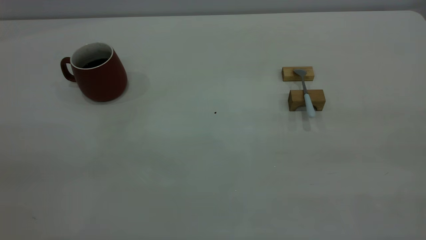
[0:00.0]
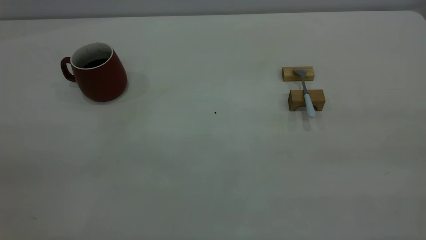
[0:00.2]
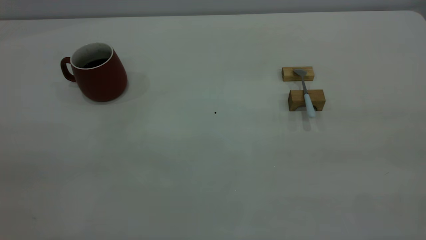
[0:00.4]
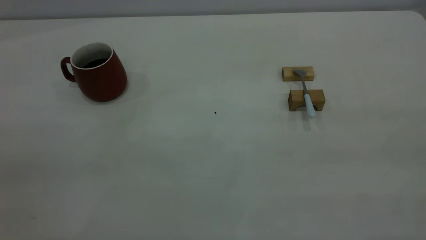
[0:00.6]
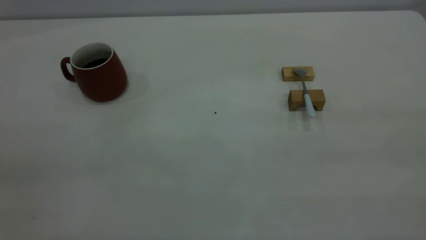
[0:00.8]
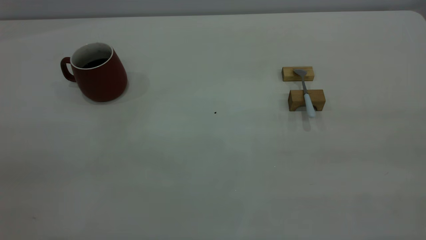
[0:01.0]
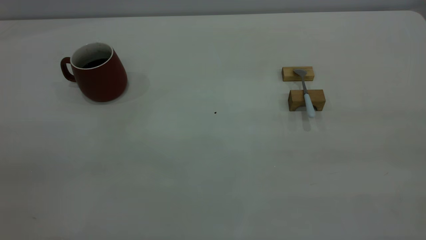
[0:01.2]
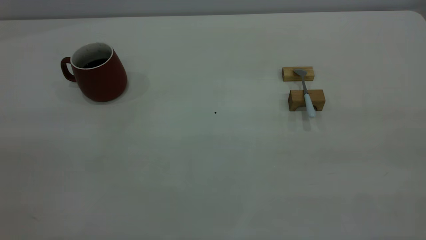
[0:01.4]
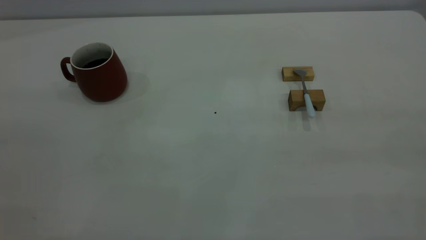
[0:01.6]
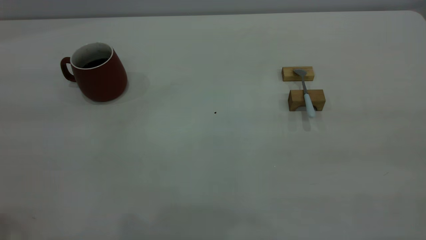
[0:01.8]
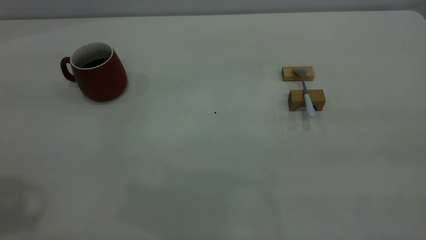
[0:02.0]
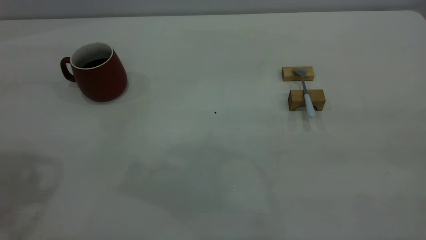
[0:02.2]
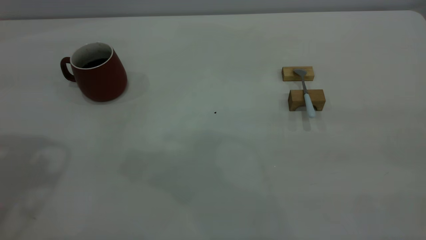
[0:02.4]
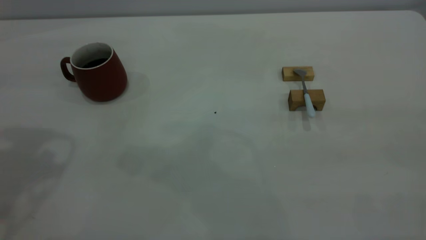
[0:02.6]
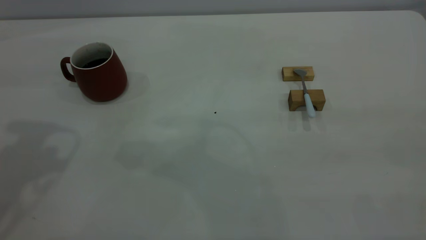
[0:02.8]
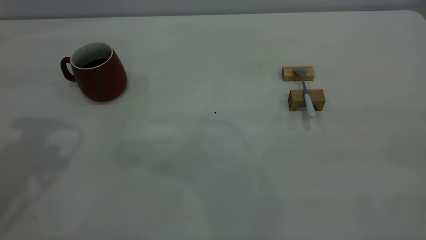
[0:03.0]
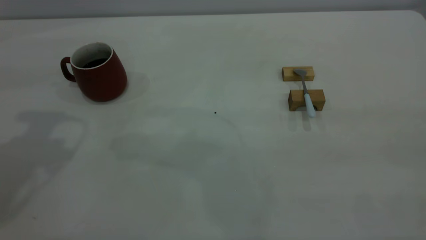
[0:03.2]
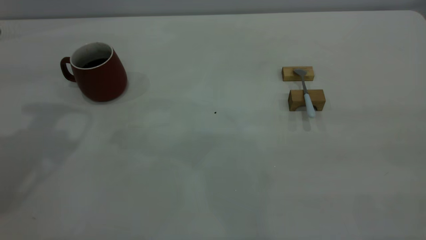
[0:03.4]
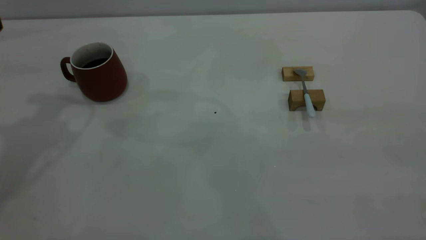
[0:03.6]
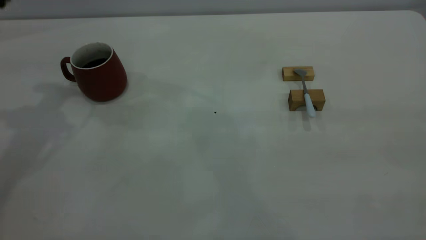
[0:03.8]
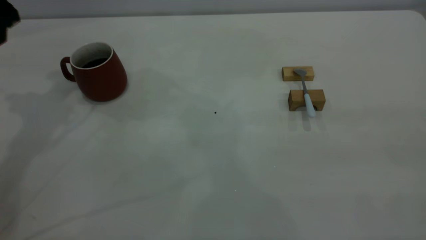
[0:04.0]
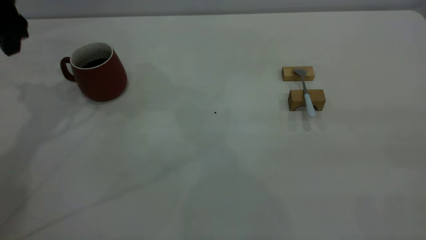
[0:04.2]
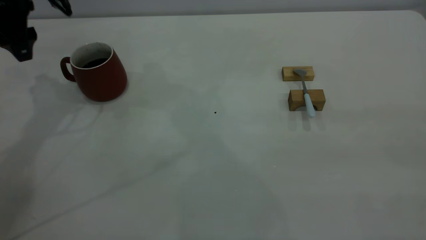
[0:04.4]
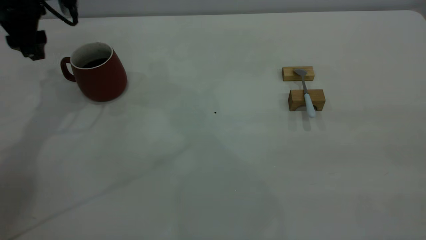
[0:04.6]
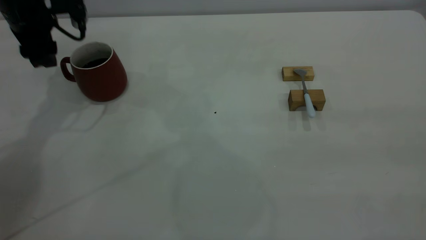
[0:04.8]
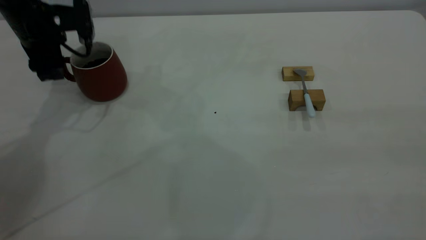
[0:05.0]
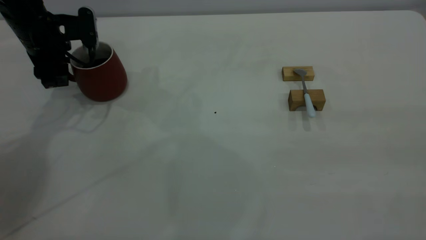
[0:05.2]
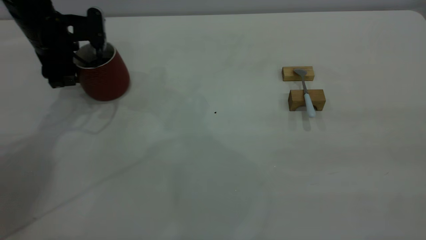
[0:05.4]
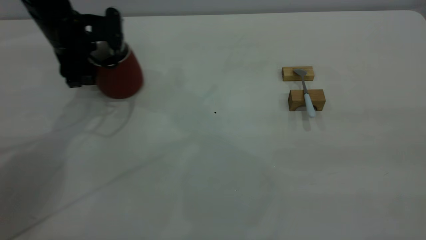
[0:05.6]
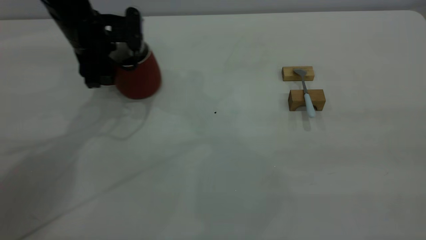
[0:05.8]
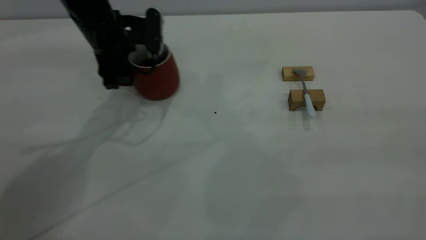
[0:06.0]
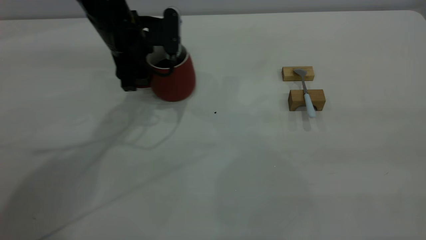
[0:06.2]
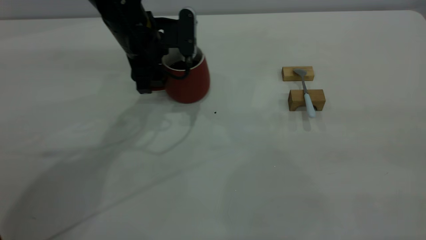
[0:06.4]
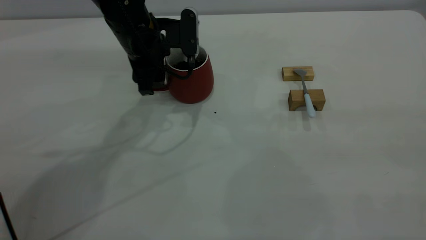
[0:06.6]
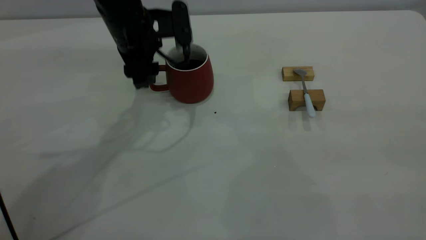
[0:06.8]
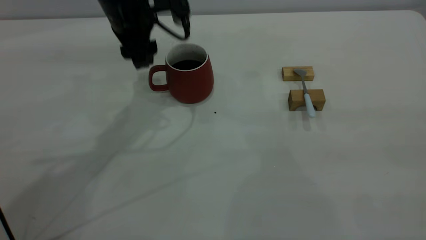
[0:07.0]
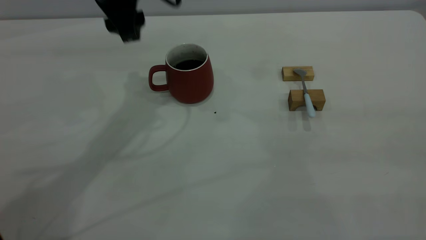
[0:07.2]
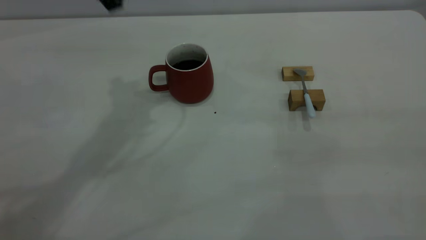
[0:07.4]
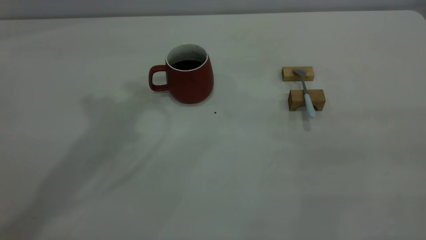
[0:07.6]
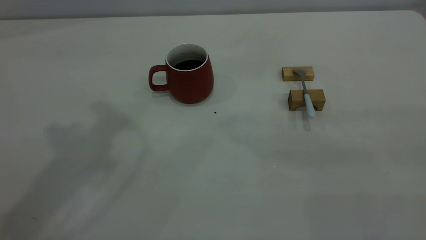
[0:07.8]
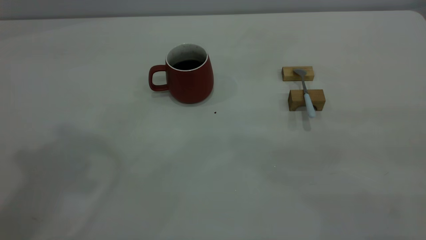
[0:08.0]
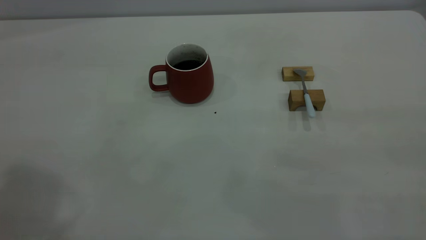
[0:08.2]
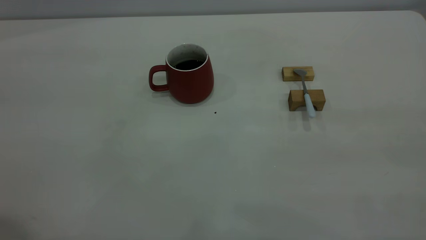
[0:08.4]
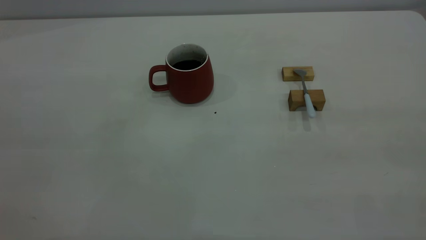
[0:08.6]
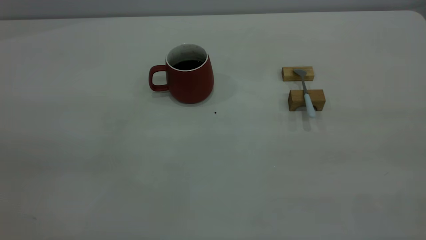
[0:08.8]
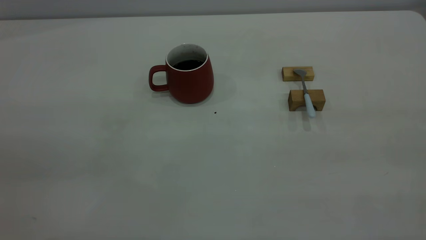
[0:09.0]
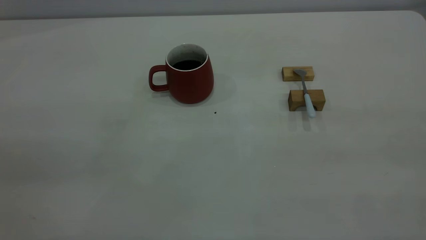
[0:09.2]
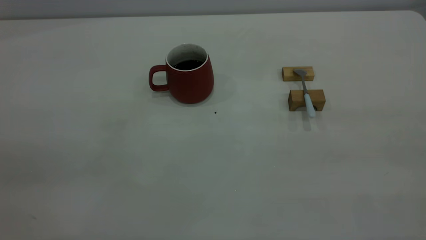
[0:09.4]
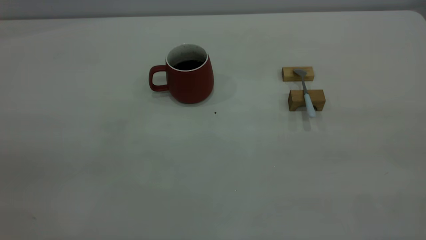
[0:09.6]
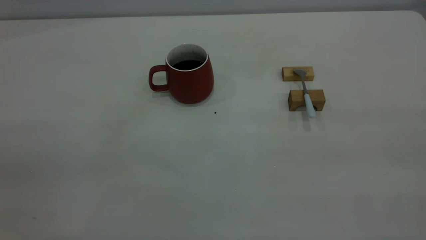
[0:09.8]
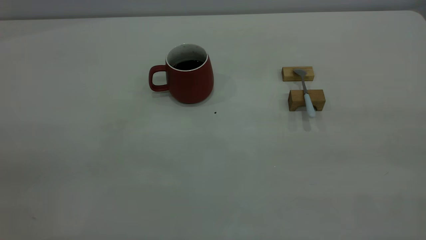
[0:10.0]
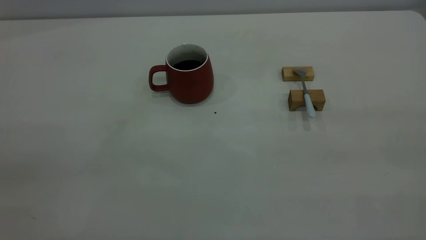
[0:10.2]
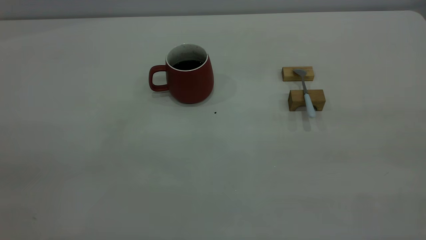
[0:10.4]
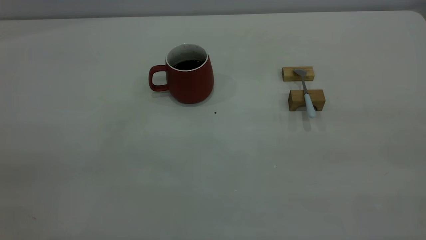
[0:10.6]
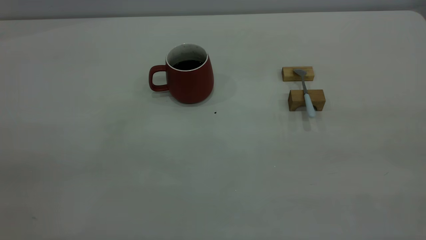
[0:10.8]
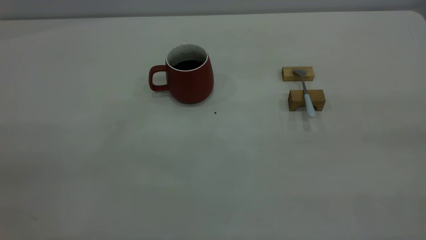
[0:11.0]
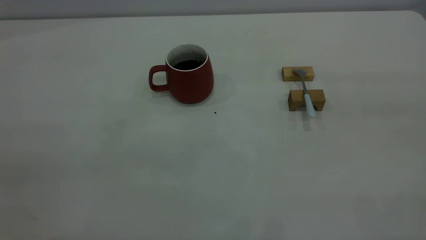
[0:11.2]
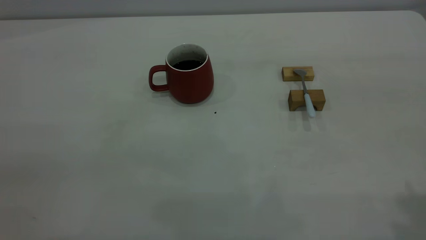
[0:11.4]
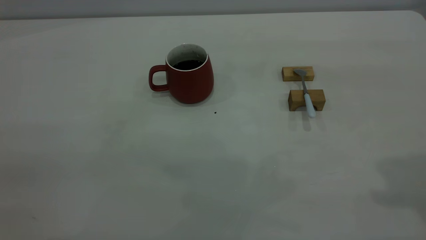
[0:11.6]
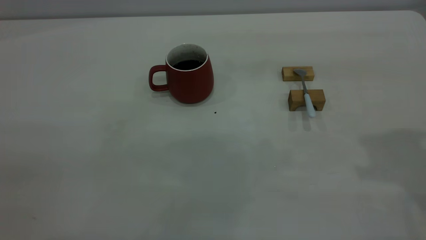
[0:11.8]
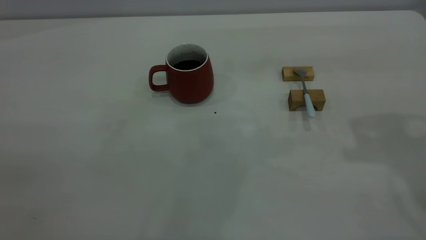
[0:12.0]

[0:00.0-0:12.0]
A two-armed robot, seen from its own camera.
Step, 0:00.0 to 0:07.0: Move the cup with coffee to the center of view.
0:03.0 to 0:04.4: The left gripper heads forward and downward, covering about 20 cm.
0:04.4 to 0:06.0: The left gripper is displaced to the right and downward by about 15 cm.
0:06.0 to 0:07.6: The left gripper travels upward by some 25 cm.

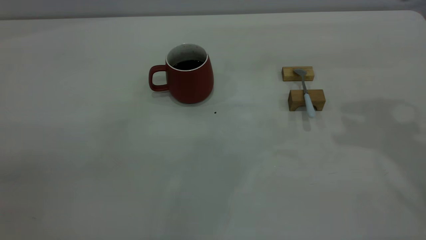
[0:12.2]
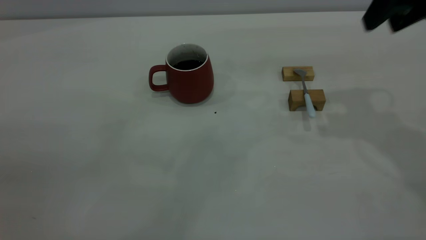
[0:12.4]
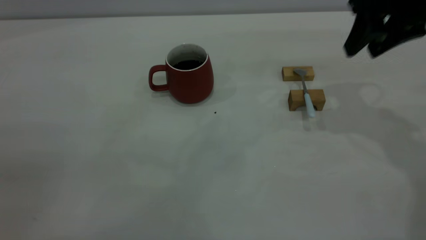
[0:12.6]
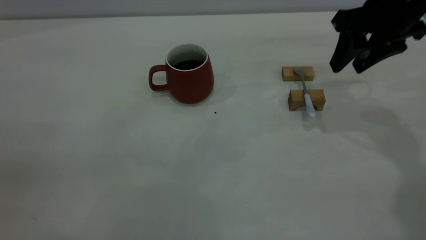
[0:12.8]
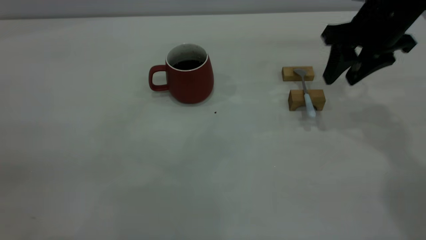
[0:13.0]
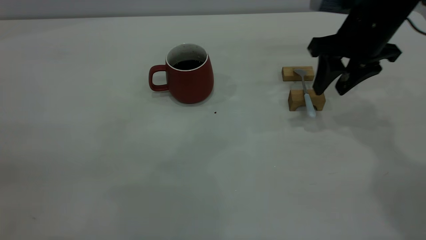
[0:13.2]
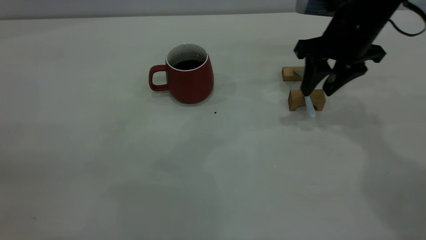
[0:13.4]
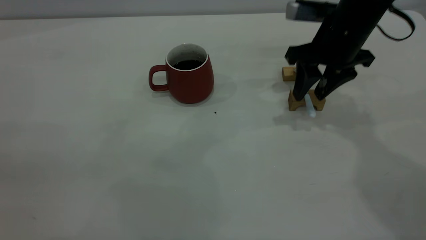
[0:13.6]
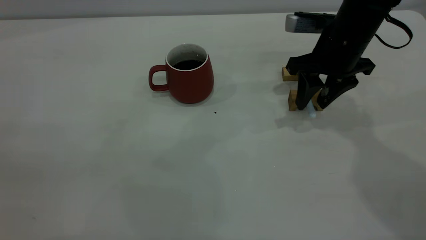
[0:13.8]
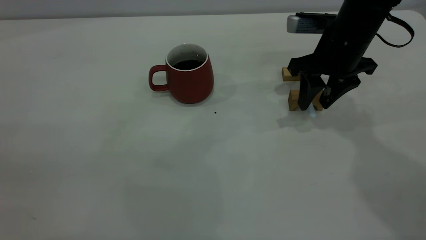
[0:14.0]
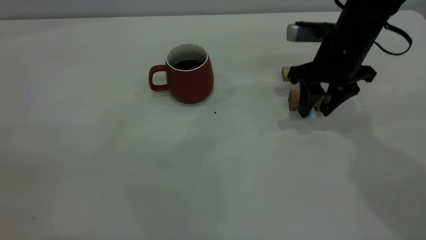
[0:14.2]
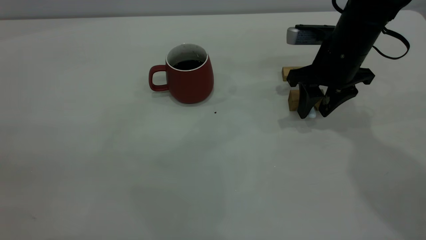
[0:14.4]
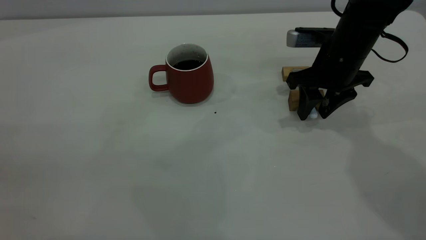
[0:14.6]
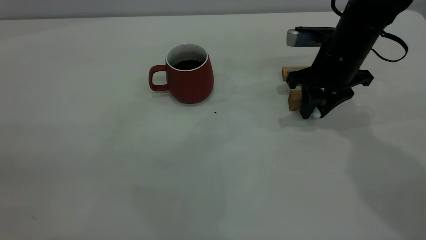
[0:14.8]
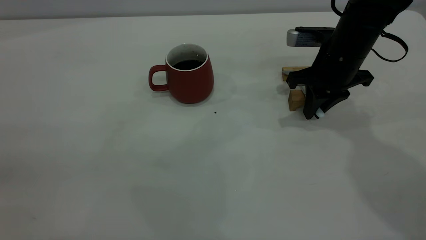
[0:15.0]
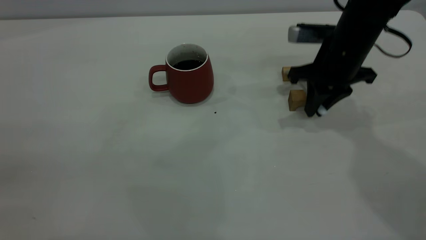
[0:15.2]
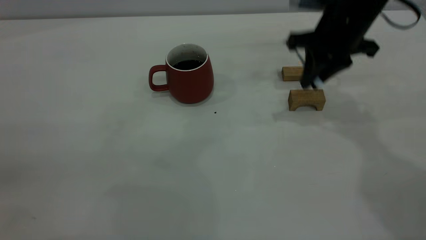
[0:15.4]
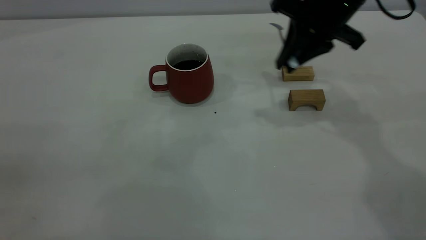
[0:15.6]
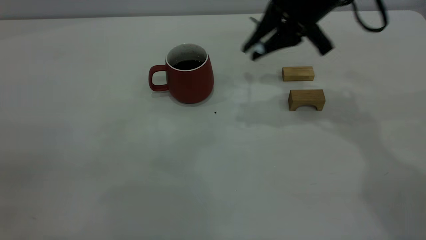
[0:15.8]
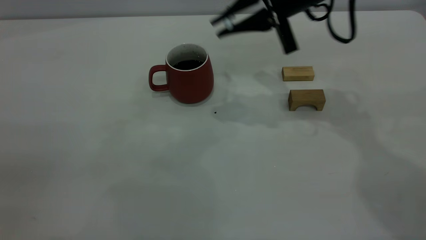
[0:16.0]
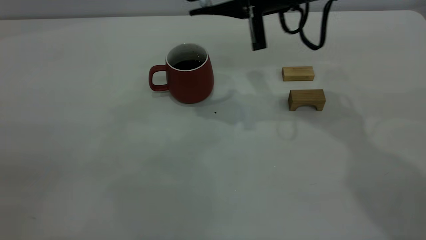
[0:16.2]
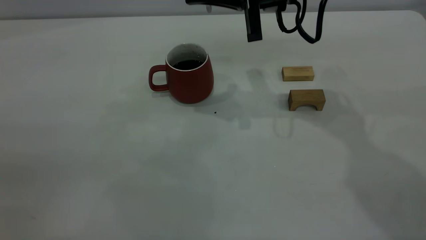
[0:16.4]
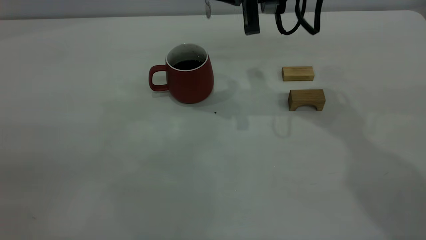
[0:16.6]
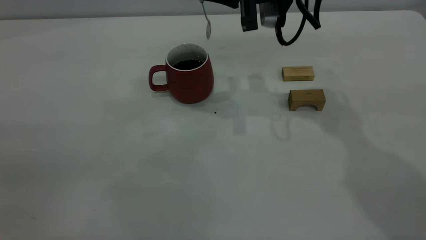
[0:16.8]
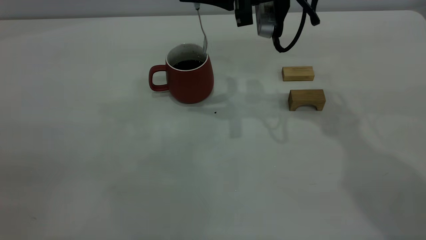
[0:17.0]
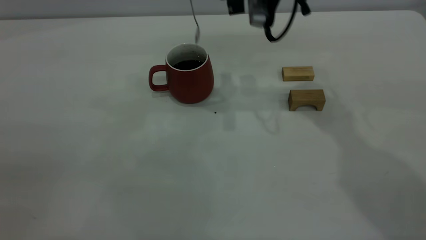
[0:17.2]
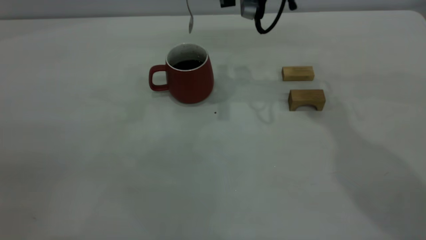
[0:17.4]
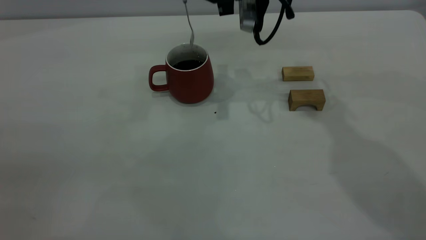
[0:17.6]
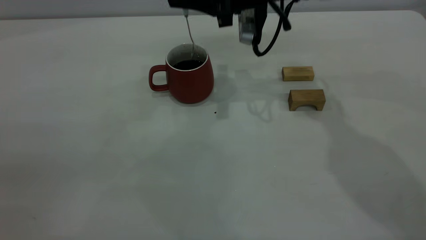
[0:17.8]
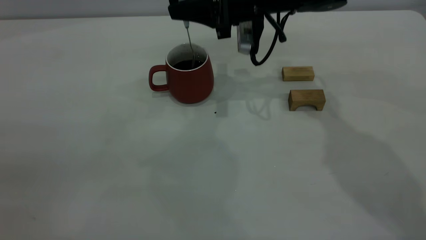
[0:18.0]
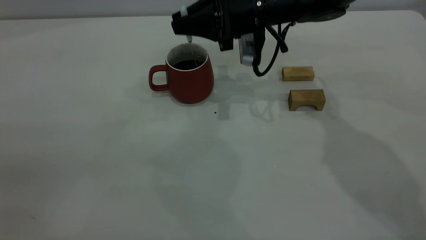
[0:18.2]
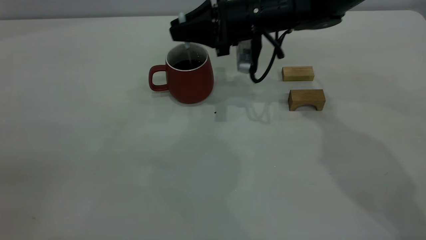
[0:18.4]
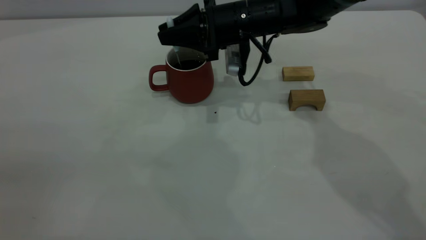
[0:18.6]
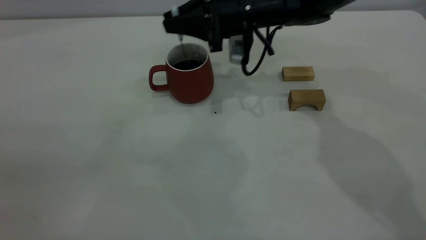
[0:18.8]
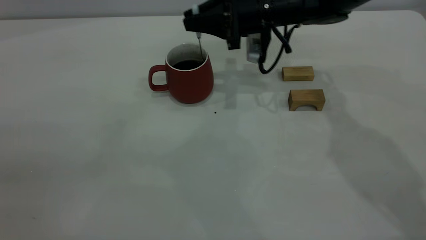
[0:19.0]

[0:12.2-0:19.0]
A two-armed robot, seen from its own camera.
Step, 0:12.2 to 0:15.4: Pick up the spoon.
0:12.2 to 0:13.6: The right gripper moves downward, to the left and forward, roughly 20 cm.
0:13.6 to 0:15.0: The right gripper closes its fingers.
0:15.0 to 0:16.2: The right gripper shifts roughly 15 cm upward and to the left.
0:16.2 to 0:17.6: The right gripper ends up some 5 cm from where it was.
0:17.6 to 0:19.0: The right gripper heads downward, covering some 5 cm.
